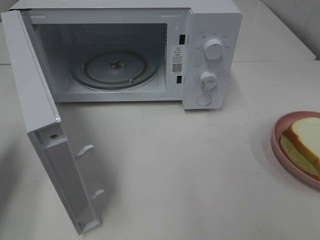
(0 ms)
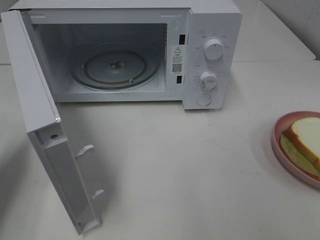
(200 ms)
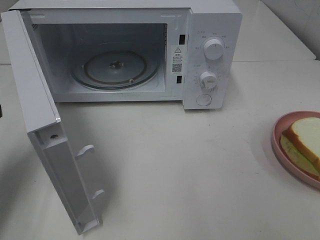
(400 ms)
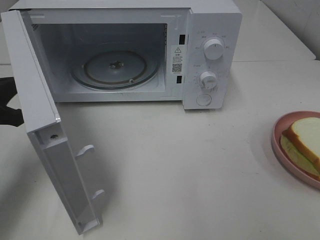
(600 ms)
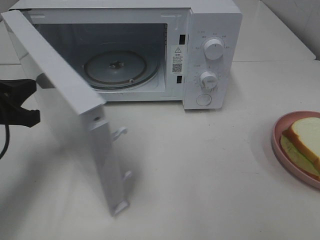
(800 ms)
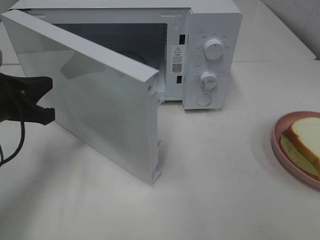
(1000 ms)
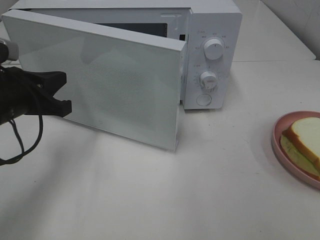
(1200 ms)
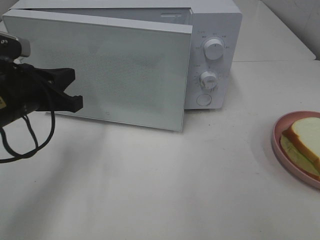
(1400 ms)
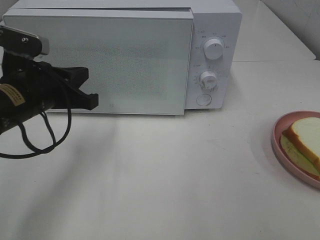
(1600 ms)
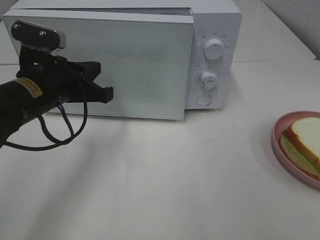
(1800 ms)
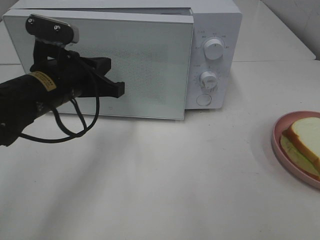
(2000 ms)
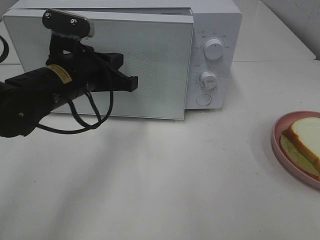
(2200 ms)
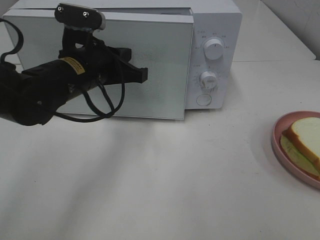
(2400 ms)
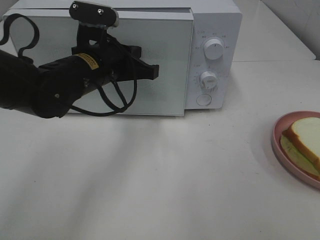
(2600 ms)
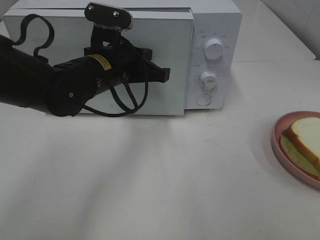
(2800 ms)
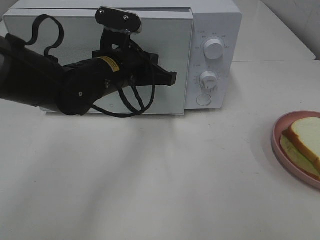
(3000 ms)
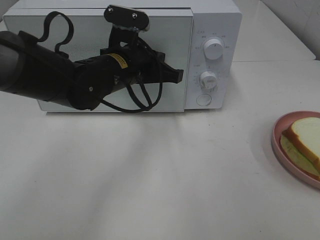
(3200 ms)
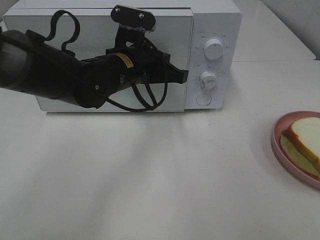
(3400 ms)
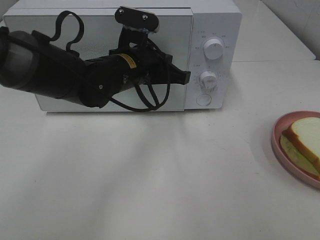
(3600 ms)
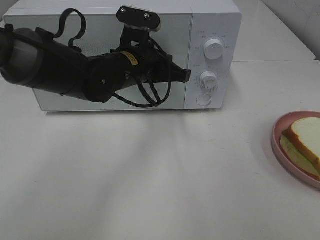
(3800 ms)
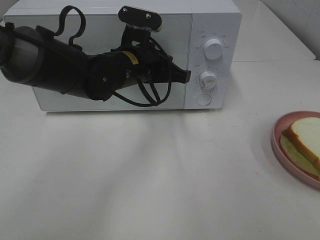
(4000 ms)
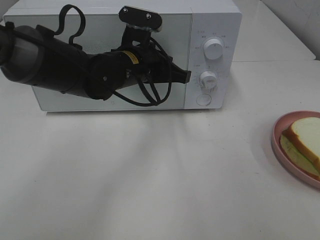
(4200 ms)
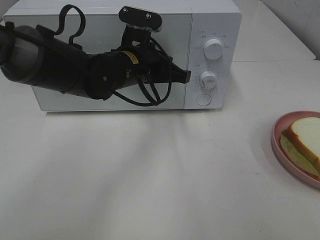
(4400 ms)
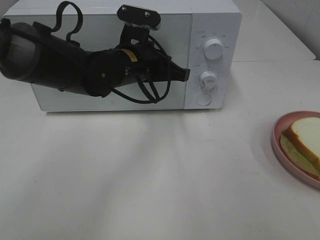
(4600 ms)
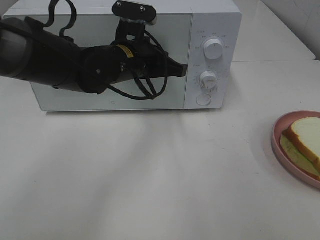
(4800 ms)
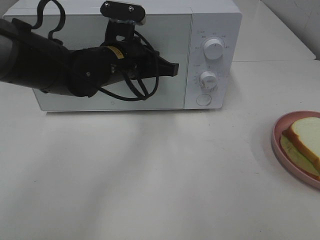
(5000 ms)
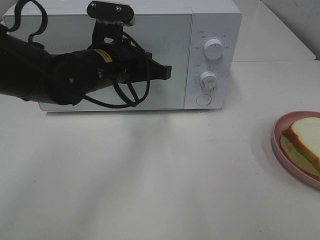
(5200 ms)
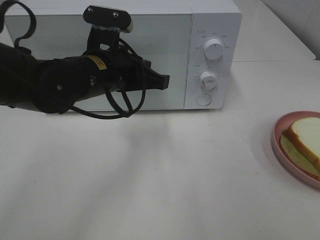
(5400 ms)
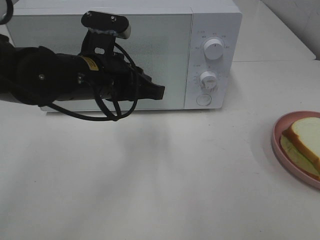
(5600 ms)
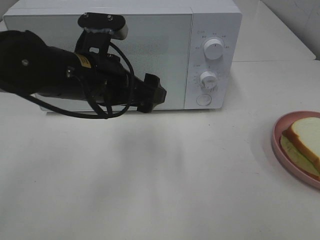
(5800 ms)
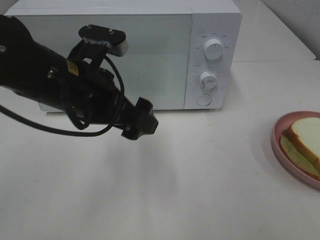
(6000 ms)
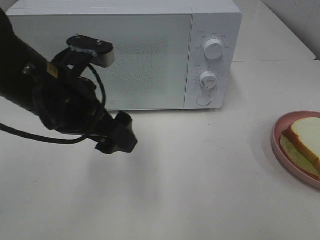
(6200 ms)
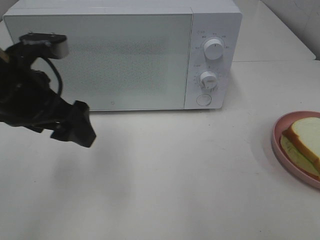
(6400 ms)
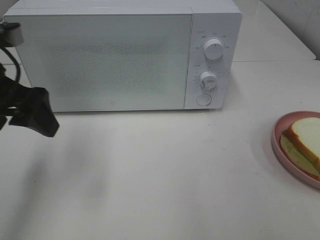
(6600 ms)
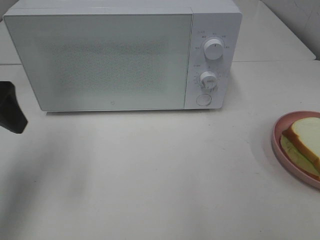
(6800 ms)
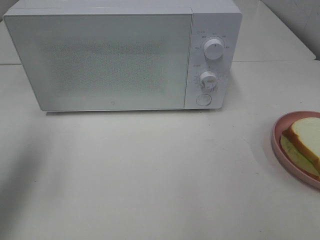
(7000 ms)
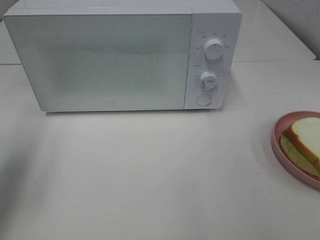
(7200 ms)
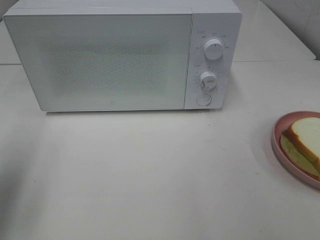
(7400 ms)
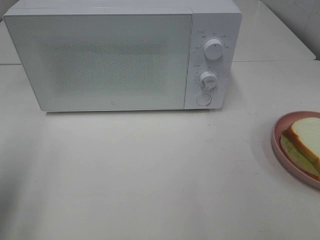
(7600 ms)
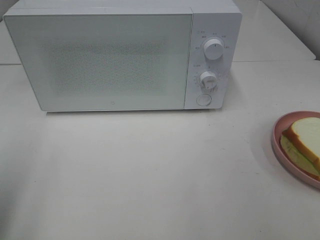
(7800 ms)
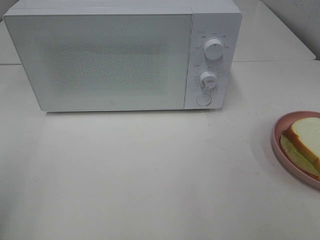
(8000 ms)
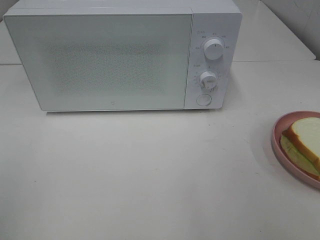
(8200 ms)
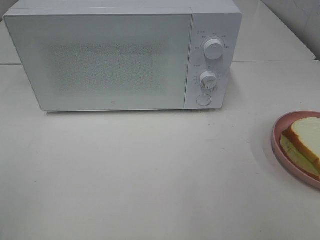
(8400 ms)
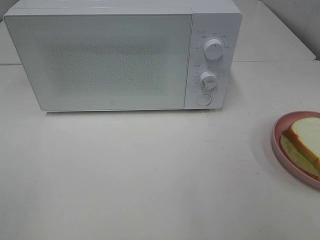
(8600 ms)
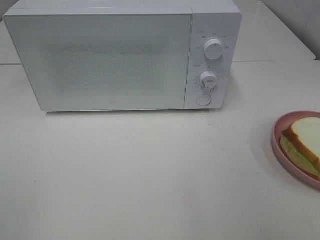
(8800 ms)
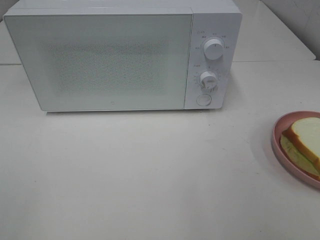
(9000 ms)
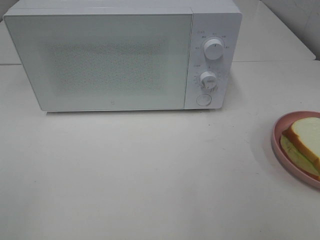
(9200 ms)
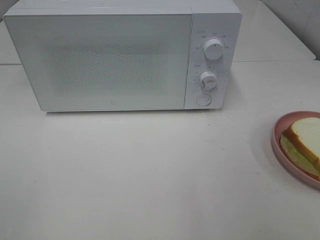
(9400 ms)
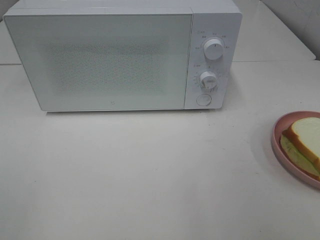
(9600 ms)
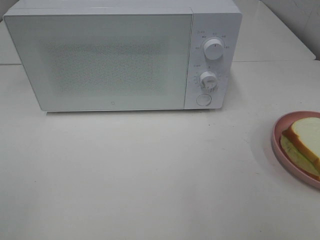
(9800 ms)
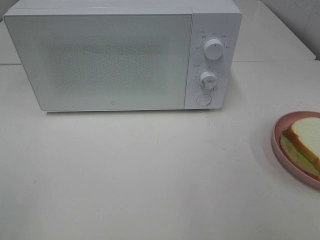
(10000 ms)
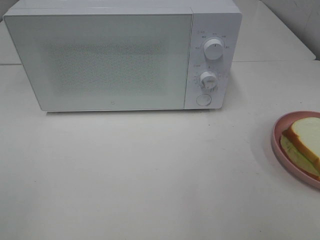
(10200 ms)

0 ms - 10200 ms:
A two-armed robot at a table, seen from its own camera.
Task of the whole recording: Heat Sandwich.
Step, 0 ms - 5400 ms: Left hand: close the microwave door.
0 ms - 1400 ms: The left gripper heads to the right and forward, covering some 15 cm.
1400 ms - 3000 ms: The left gripper travels to the right and forward by about 15 cm.
3000 ms - 4400 ms: The grippers make only small movements.
4400 ms - 5800 ms: The left gripper goes approximately 10 cm backward and to the left, and opens up.
5800 ms - 7200 ms: The left gripper goes about 25 cm to the left.
7200 ms - 8800 ms: The left gripper heads backward, covering roughly 20 cm.
8800 ms - 10200 ms: Neither gripper changes place.

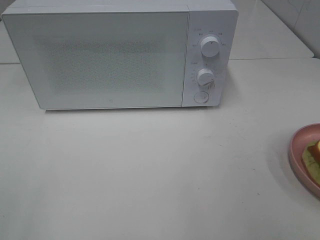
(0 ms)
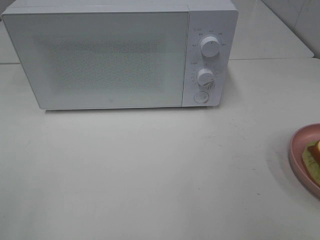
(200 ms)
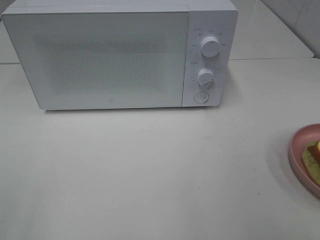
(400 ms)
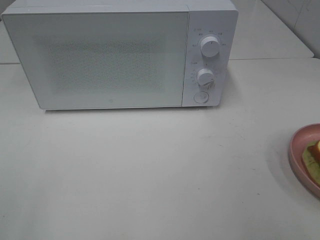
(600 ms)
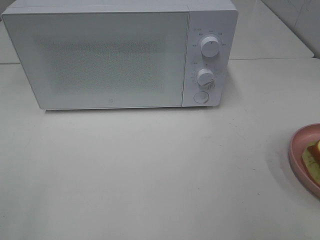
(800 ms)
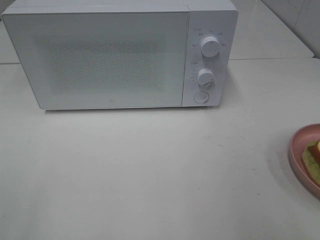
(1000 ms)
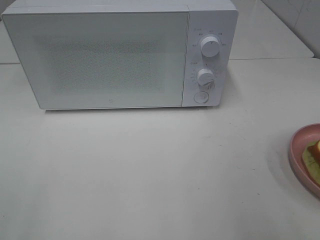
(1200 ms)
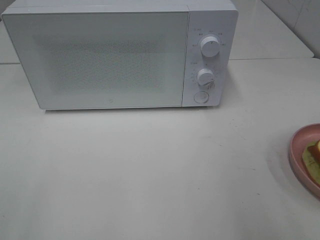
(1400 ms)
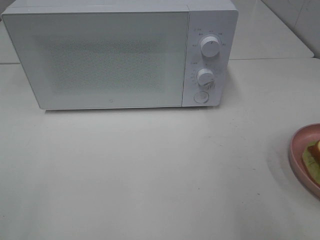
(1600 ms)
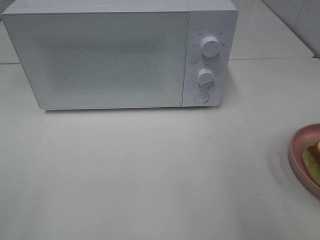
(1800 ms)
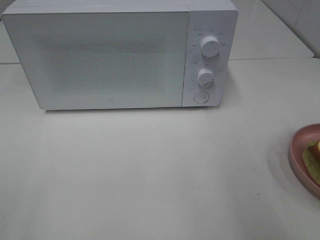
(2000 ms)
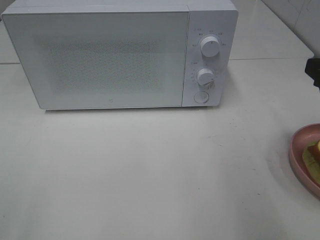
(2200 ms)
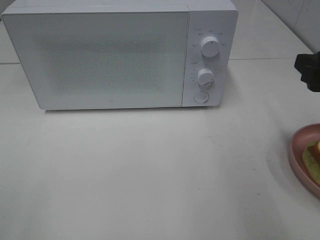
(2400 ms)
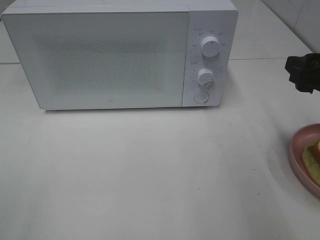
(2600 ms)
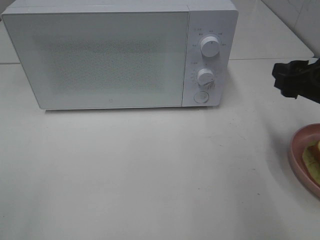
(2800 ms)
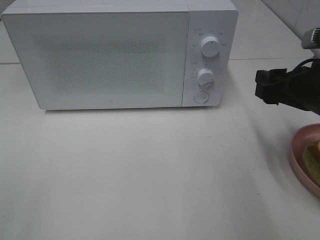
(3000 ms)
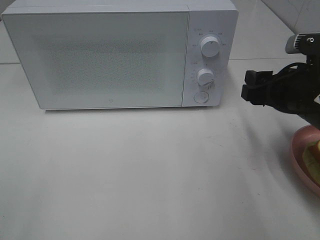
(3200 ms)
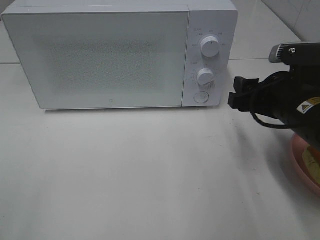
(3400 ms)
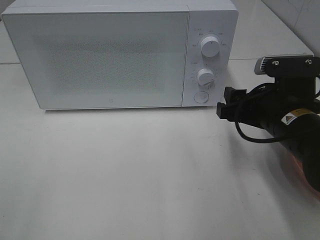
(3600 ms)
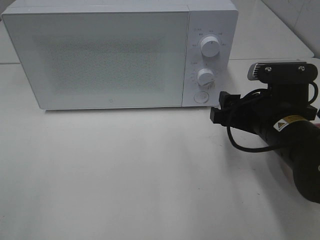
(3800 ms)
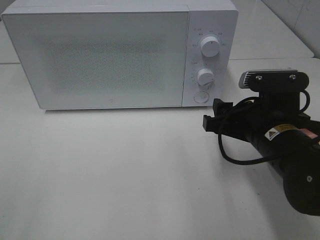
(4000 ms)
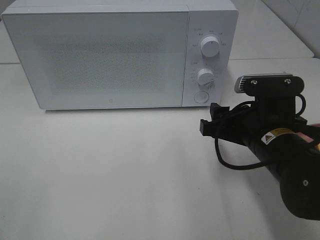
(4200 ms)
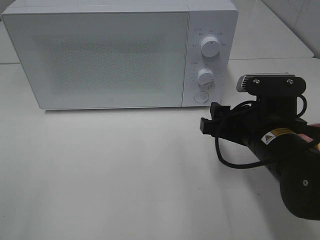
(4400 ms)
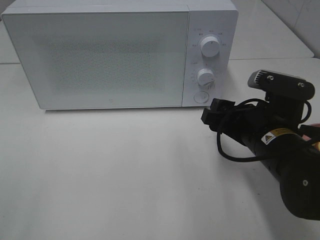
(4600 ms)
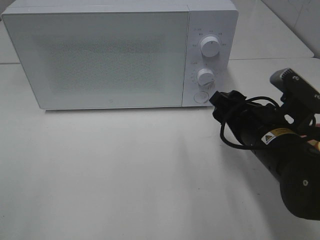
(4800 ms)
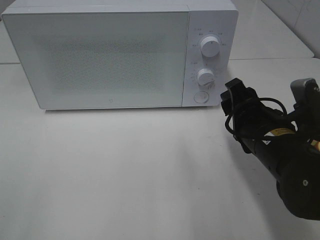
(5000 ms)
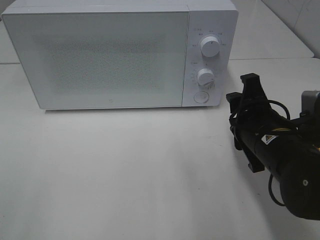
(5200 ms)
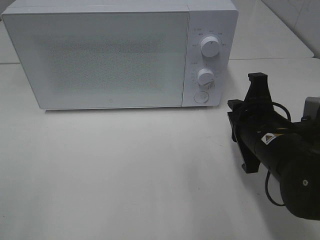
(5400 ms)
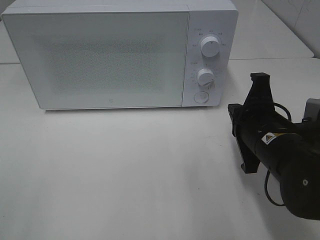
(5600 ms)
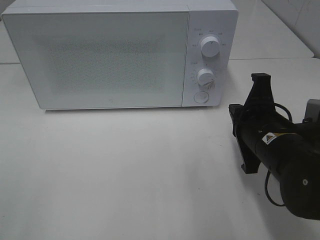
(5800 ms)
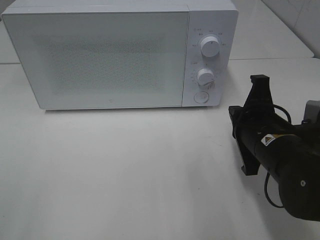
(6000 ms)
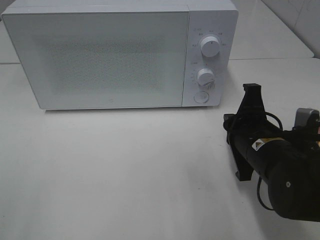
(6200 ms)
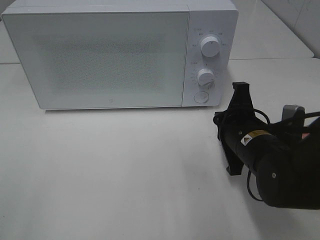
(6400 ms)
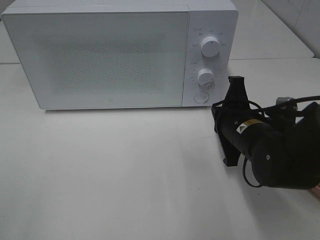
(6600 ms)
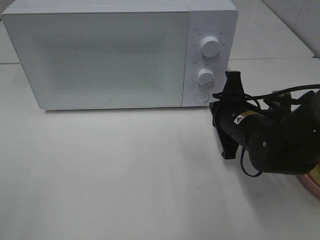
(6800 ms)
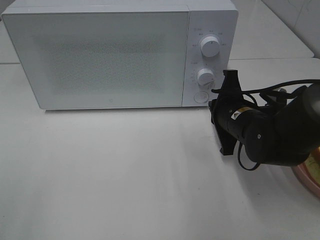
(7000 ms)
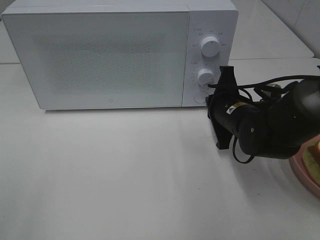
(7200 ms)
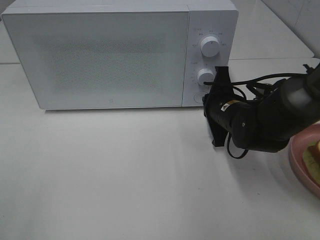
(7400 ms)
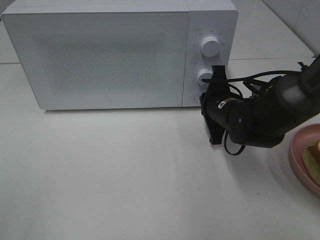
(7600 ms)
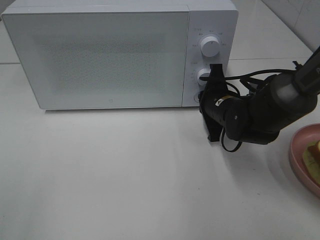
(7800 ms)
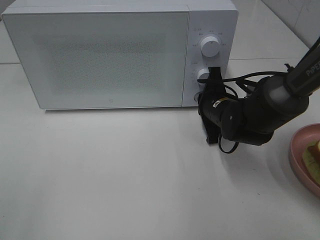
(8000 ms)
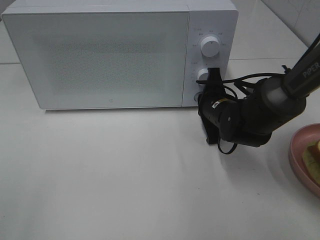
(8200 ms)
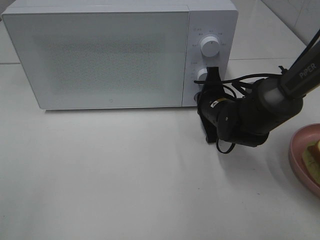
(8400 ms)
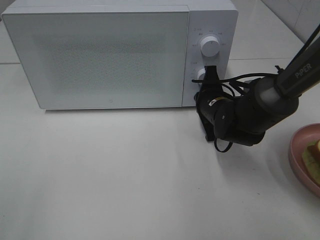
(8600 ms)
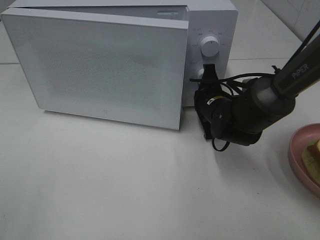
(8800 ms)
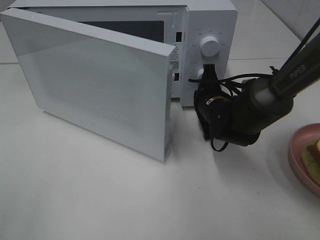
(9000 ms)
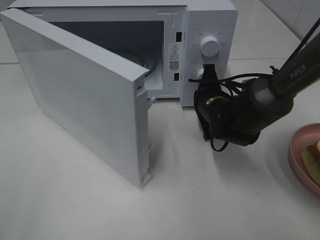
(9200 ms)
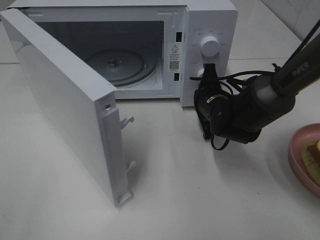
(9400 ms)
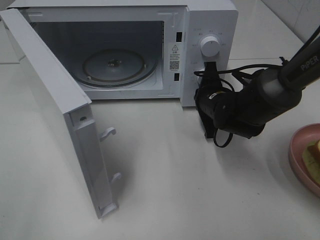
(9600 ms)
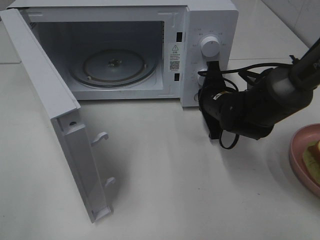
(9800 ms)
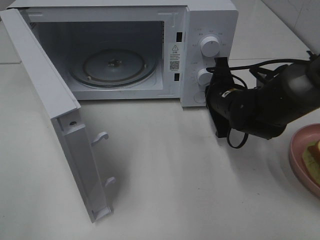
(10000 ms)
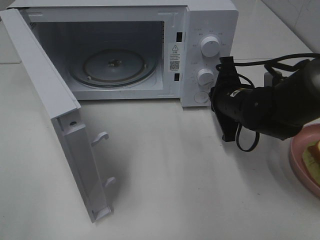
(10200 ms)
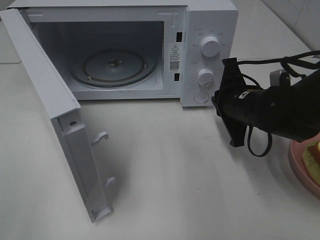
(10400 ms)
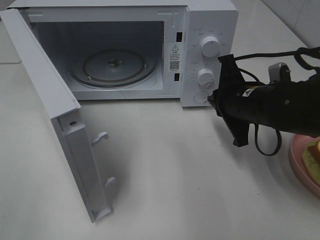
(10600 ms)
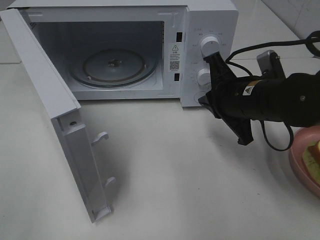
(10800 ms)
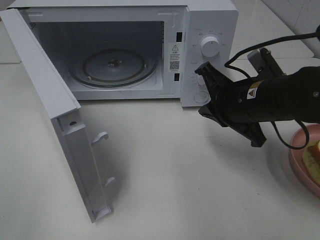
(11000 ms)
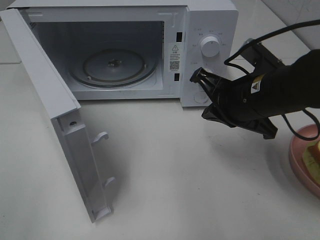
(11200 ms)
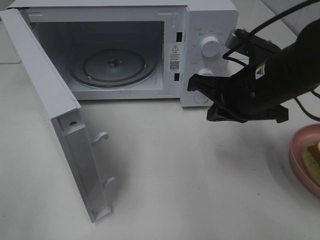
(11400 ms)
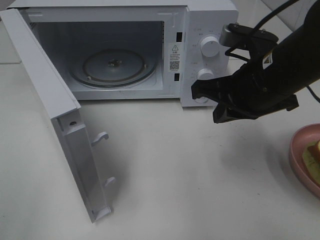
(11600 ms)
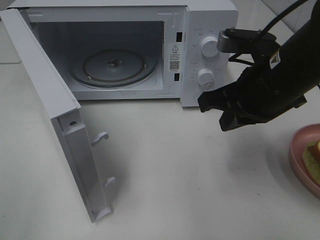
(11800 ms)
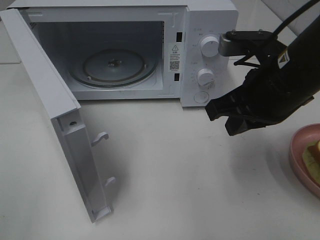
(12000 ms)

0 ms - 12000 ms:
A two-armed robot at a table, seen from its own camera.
Task of the whole recording: Heat Sandwich.
Step, 0 ms - 10200 ms: Right hand: press the switch.
1600 ms - 3000 ms: The right gripper goes roughly 15 cm forward and downward.
3000 ms - 4400 ms: The right gripper is displaced to the left and downward by roughly 10 cm.
4400 ms - 6000 ms: The right gripper closes up.
6000 ms - 7600 ms: The right gripper heads forward, covering about 10 cm.
9000 ms - 10400 ms: The right gripper travels backward and upward by approximately 10 cm.
10400 ms - 12000 ms: The right gripper goes some 10 cm upward and backward.
